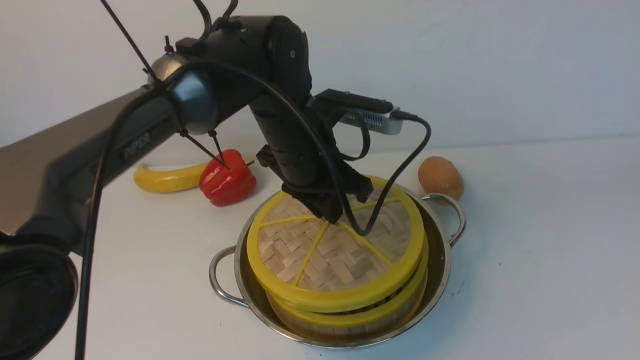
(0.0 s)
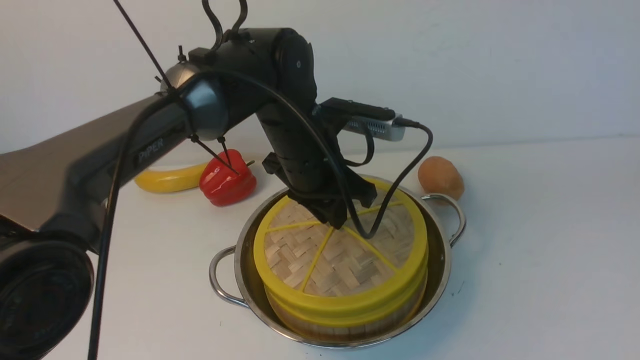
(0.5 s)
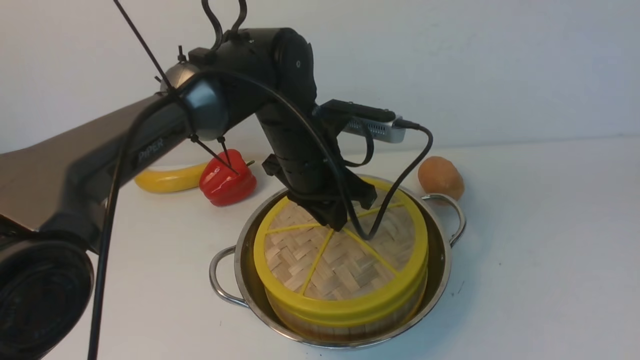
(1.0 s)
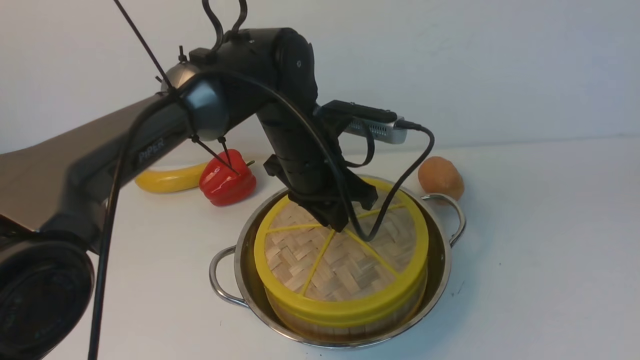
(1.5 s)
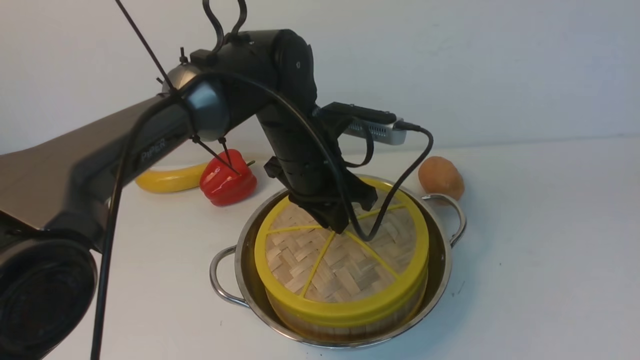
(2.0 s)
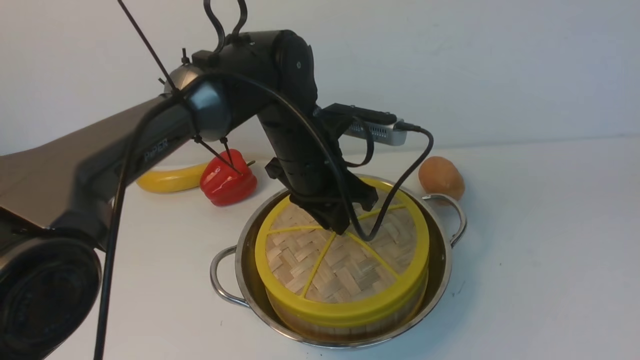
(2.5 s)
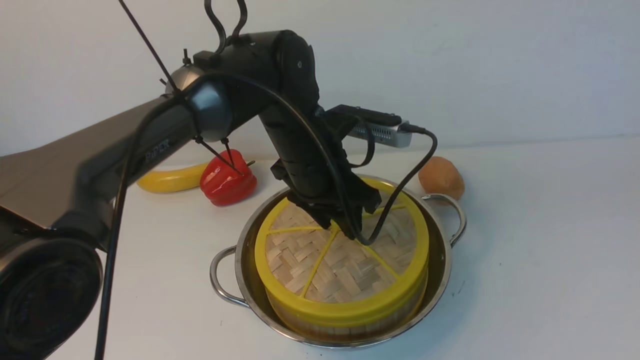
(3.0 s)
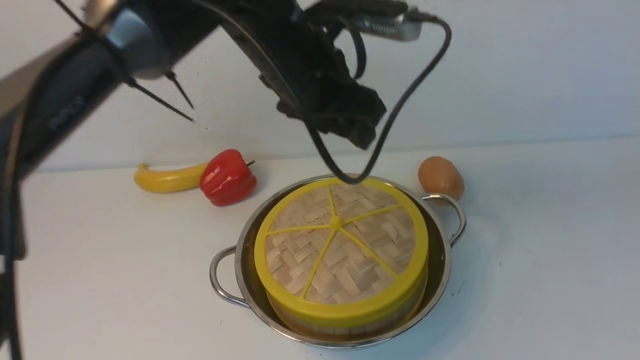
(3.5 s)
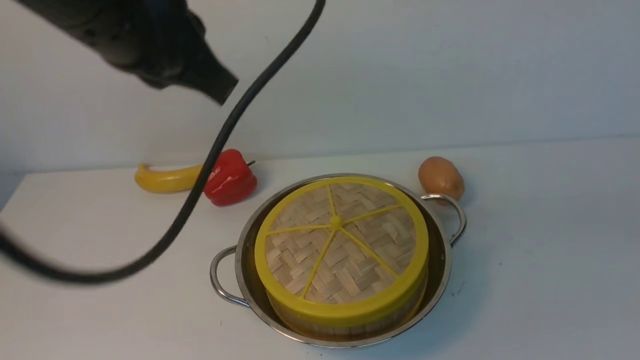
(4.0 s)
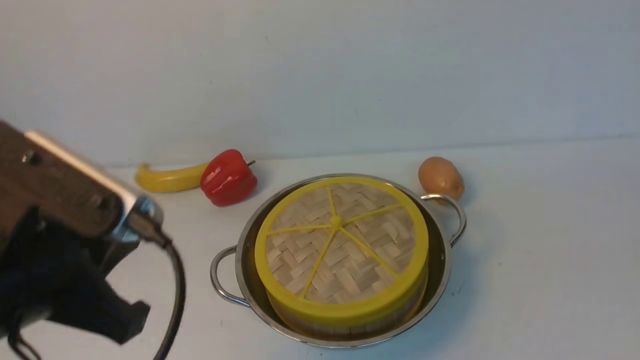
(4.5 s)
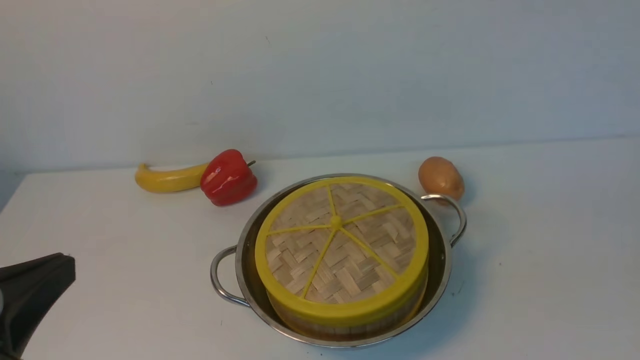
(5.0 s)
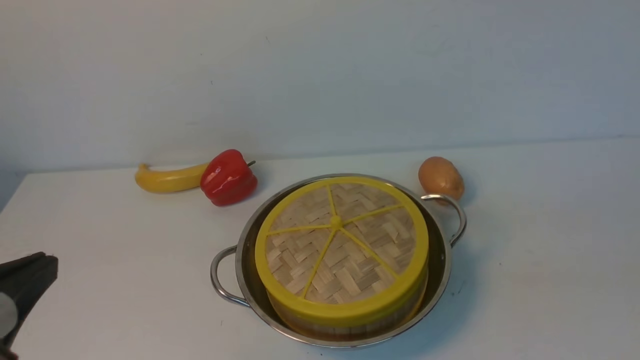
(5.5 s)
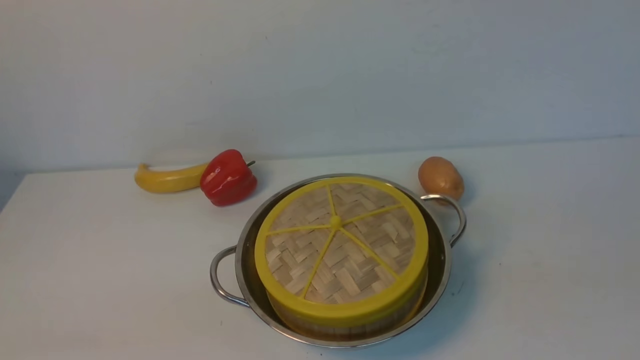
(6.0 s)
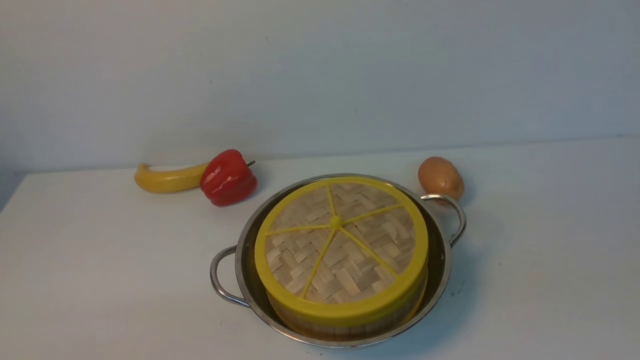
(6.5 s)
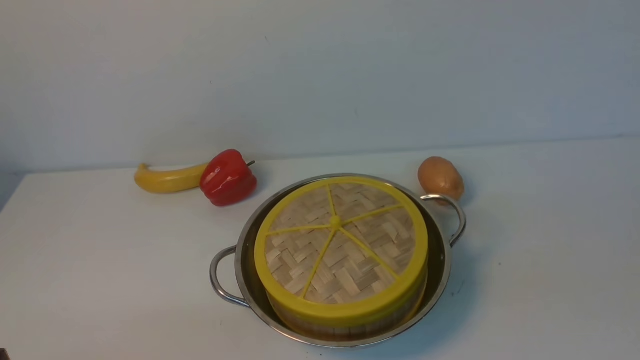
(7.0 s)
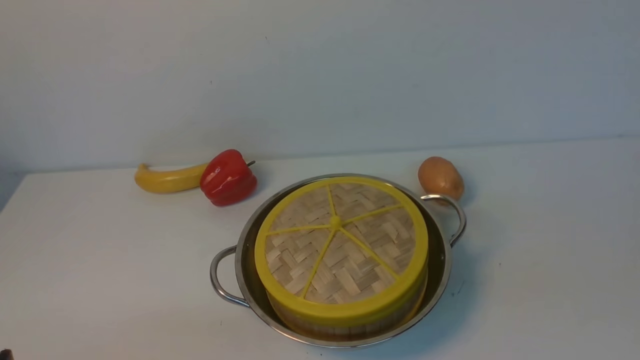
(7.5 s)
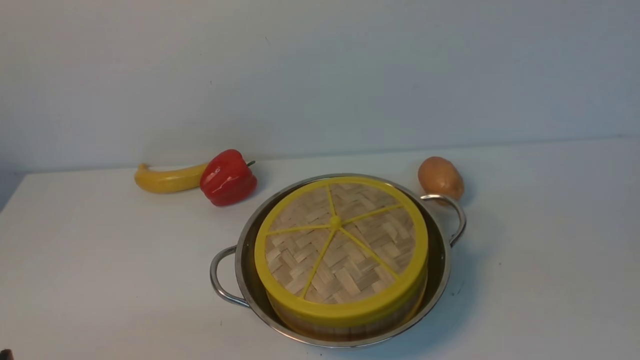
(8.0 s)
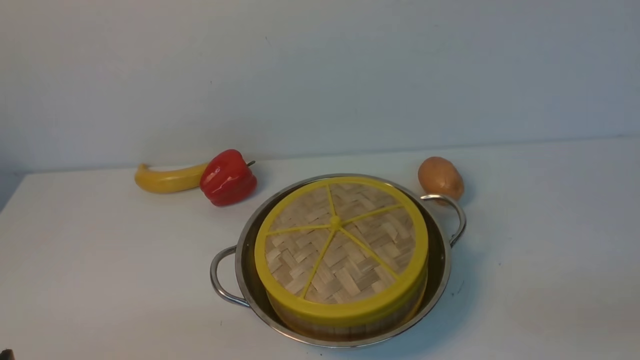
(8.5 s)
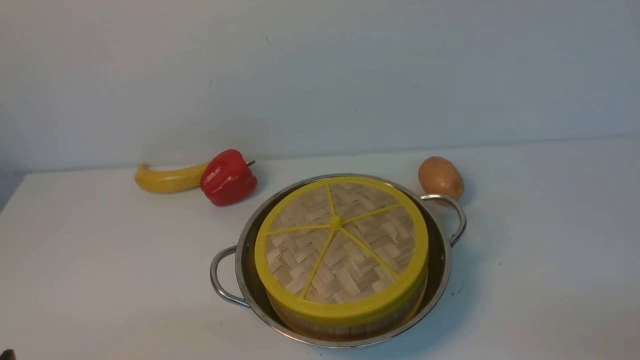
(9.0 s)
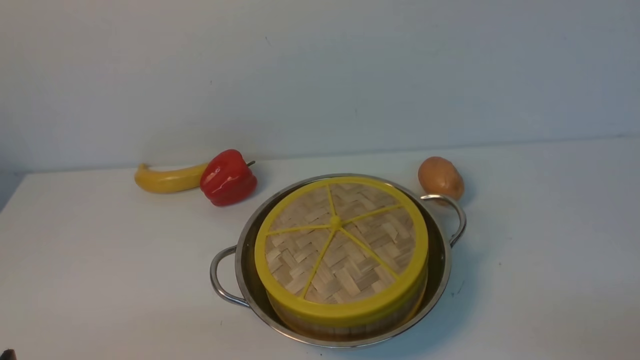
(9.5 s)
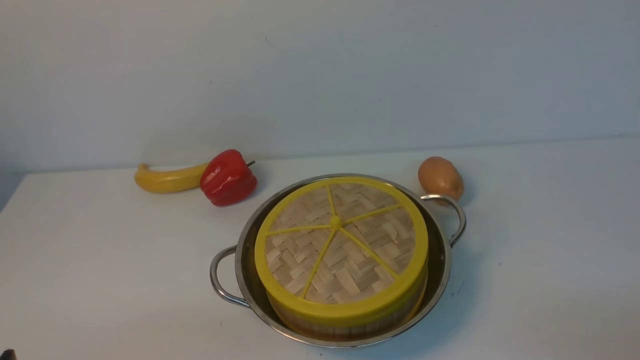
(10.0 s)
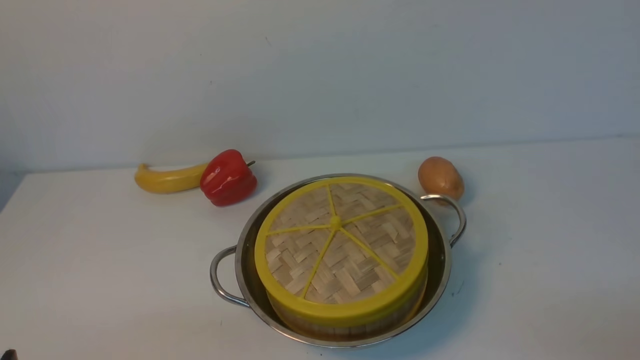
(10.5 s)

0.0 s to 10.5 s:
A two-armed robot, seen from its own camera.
Task of the whole recording: place the steamer in the pot on the white table, and put the lid on the steamer.
Step, 0.0 to 4.0 s: use the left arm to place the steamer lid on the steamer.
0.0 to 2.0 s: Both grippers stay about where they are.
2.0 to 4.0 s: The right gripper changes place by some 5 cm. The left gripper moves upward, backward and to the left, approximately 25 cm, and closes.
4.0 to 6.5 s: The left gripper moves downward, backward and to the left, some 35 cm, while the right gripper heads downward, covering roughly 5 cm.
